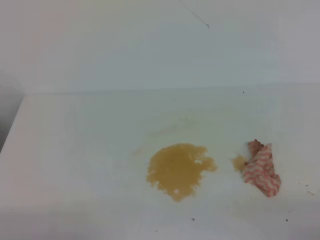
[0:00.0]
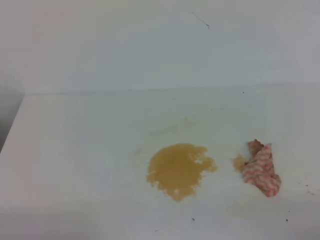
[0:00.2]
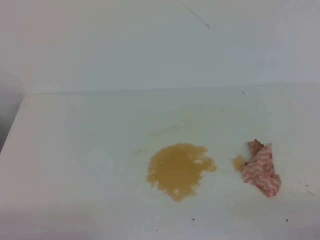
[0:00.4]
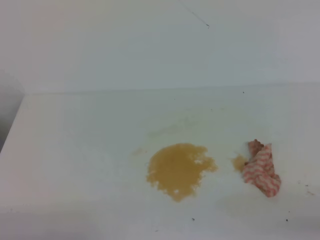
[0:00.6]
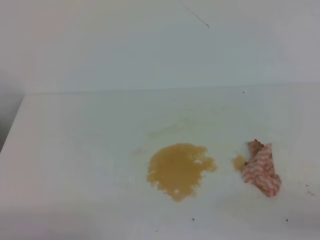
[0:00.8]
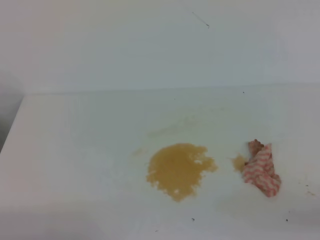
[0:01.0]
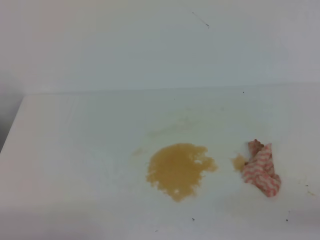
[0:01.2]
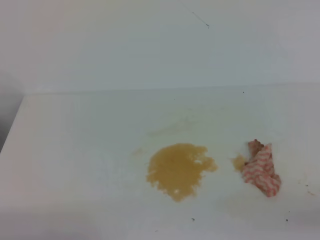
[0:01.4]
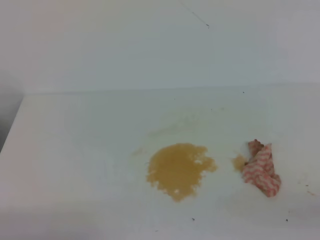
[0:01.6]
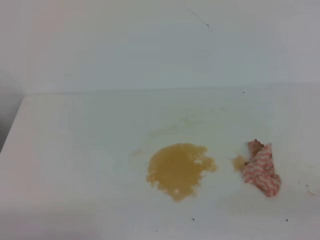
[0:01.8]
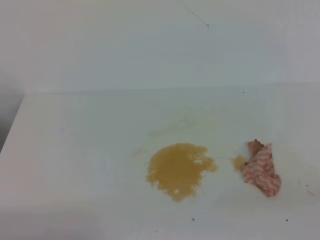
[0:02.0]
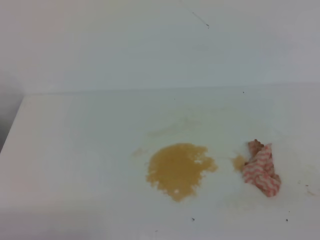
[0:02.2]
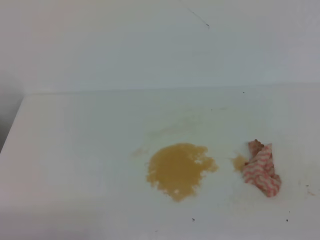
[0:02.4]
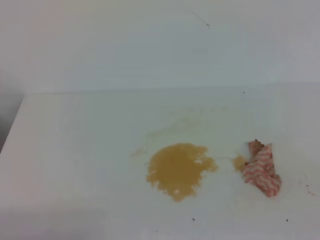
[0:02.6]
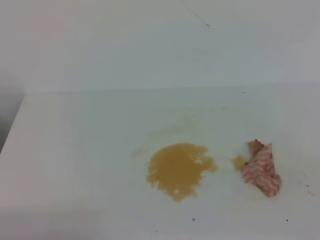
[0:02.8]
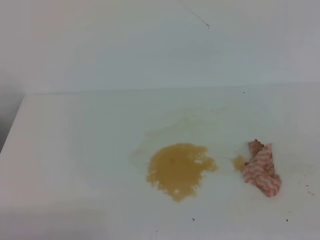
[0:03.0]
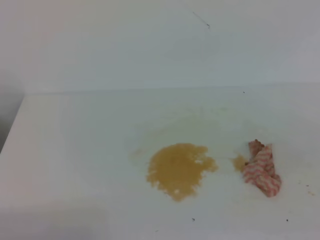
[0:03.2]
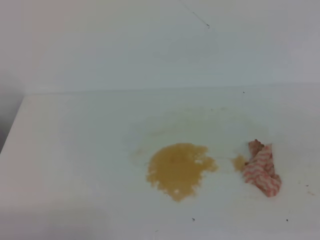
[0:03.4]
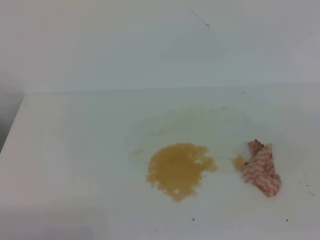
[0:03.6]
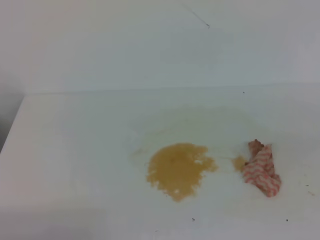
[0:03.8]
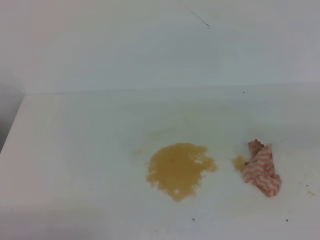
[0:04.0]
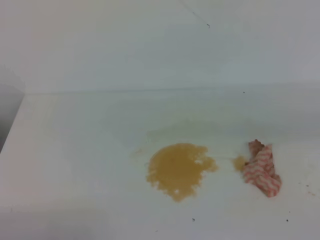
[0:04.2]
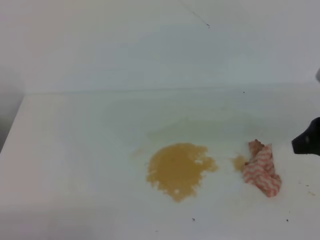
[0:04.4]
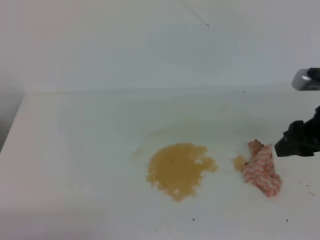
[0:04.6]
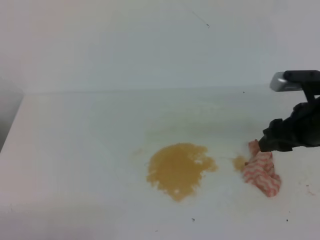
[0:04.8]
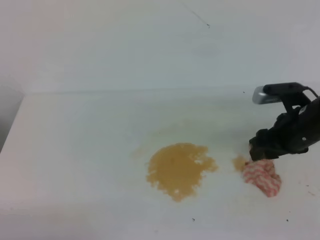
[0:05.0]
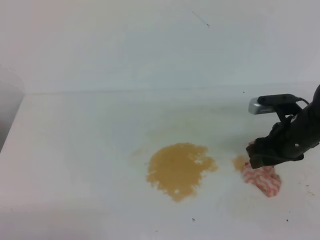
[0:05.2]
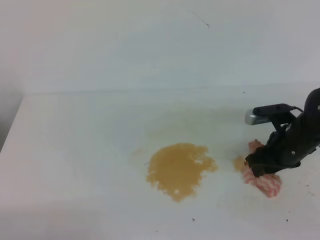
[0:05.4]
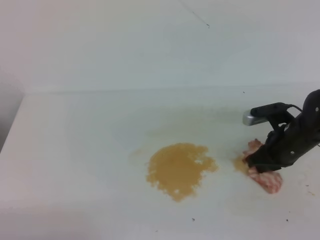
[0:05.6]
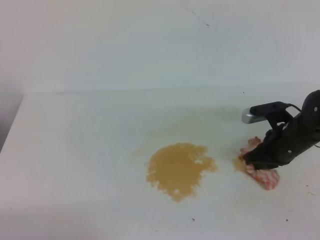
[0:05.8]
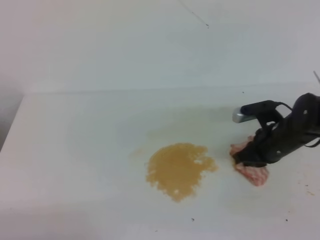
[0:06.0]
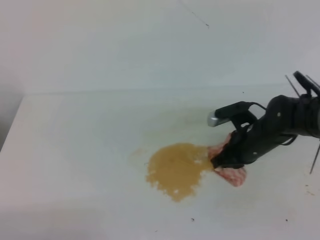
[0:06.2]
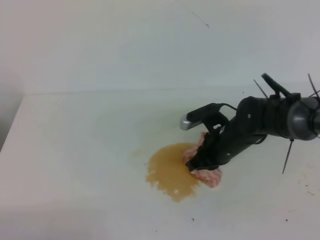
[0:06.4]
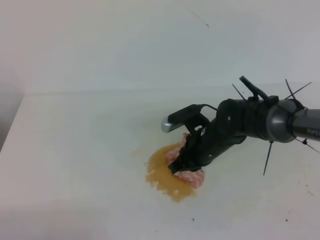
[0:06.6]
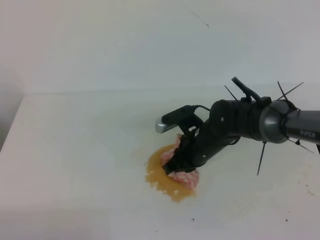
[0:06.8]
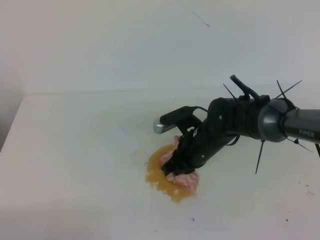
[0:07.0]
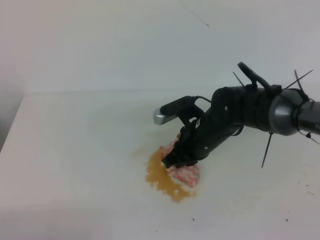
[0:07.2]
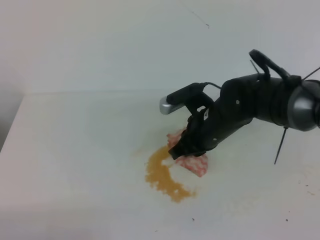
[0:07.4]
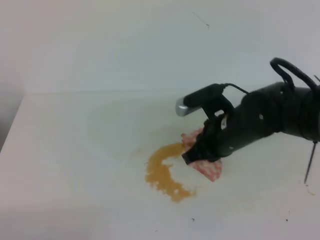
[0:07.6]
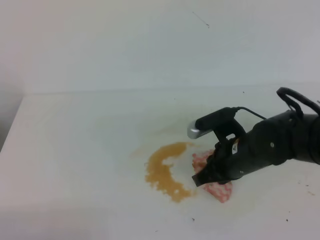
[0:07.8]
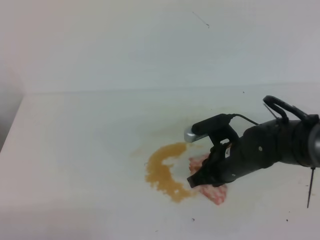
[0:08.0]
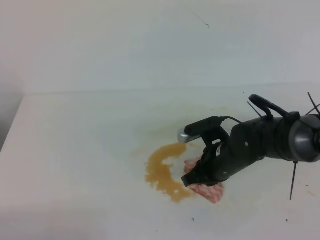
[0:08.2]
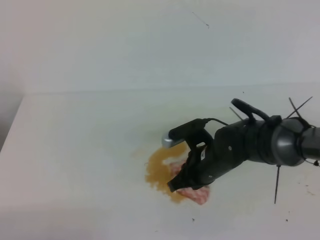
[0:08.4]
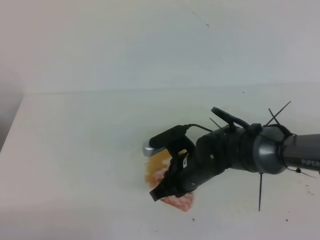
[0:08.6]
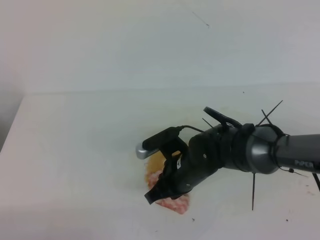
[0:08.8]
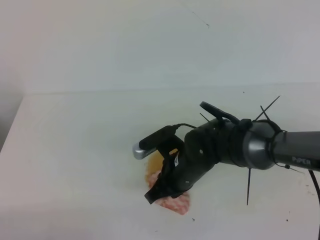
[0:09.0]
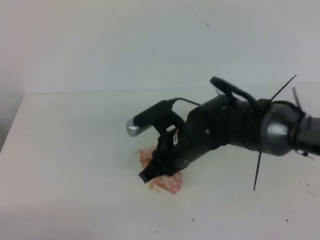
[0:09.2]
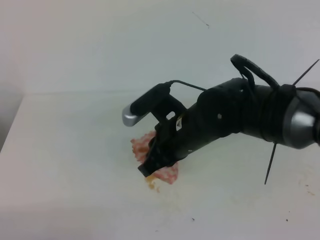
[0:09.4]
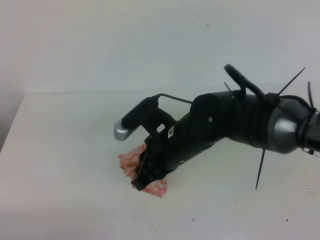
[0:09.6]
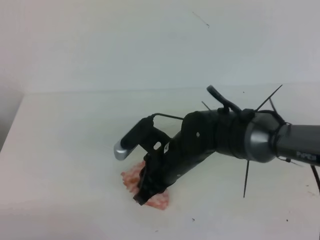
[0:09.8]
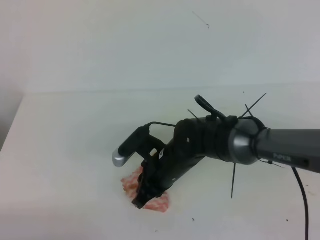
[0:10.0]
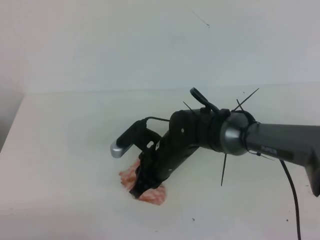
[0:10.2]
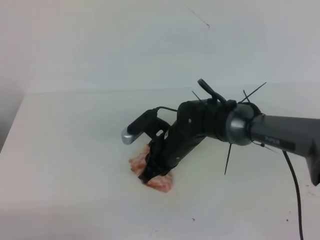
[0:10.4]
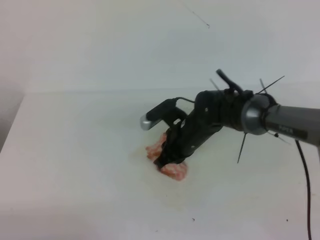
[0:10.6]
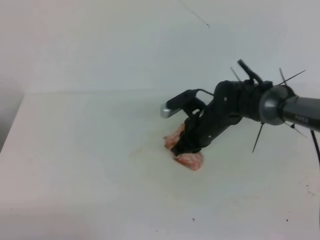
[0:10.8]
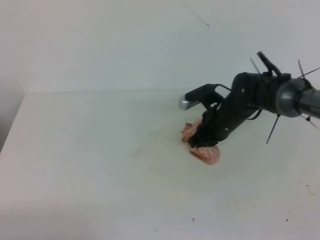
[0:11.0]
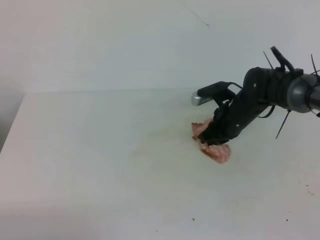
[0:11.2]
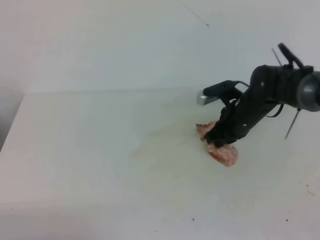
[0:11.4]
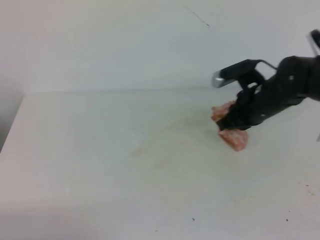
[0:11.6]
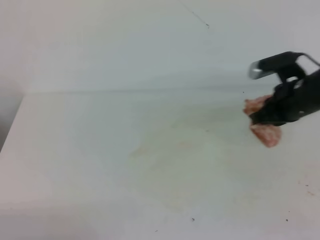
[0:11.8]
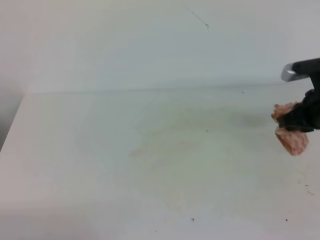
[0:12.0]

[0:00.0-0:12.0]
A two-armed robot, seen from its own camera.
0:03.0 to 0:04.4: The right gripper is displaced forward by some 20 cm, and opens its fingers.
0:04.4 to 0:06.0: The right gripper moves downward and forward, about 20 cm, and closes.
0:06.0 to 0:07.6: The right gripper shifts approximately 15 cm to the left and upward.
0:07.6 to 0:09.0: The right gripper shifts approximately 5 cm to the left.
0:09.0 to 0:10.4: The right gripper goes roughly 5 cm forward, and goes upward and returns, some 5 cm each way.
0:10.4 to 0:12.0: The right gripper goes about 25 cm to the right.

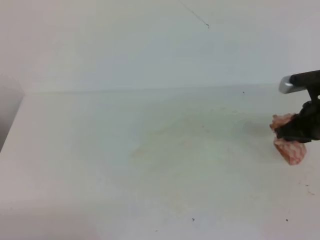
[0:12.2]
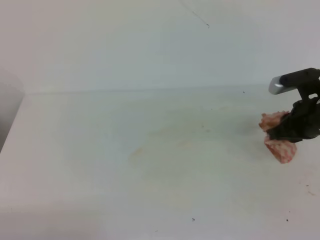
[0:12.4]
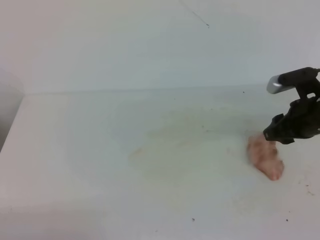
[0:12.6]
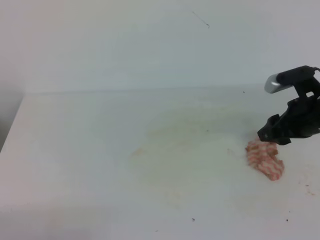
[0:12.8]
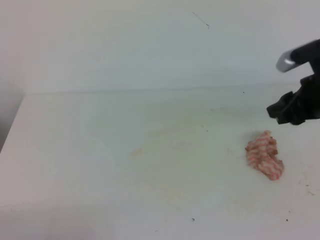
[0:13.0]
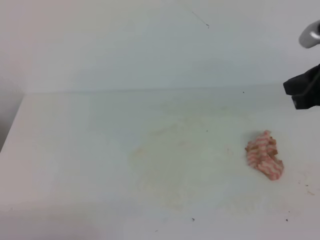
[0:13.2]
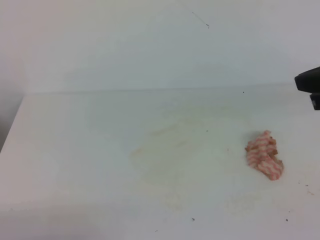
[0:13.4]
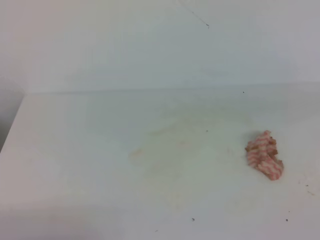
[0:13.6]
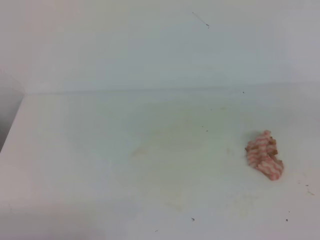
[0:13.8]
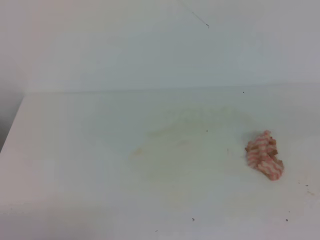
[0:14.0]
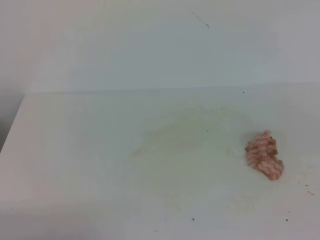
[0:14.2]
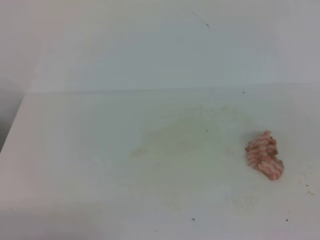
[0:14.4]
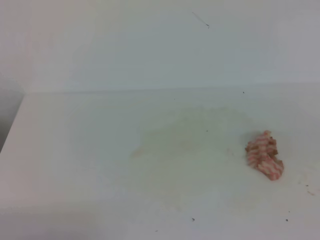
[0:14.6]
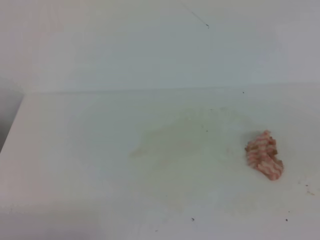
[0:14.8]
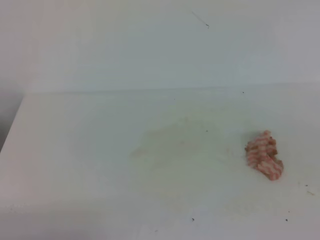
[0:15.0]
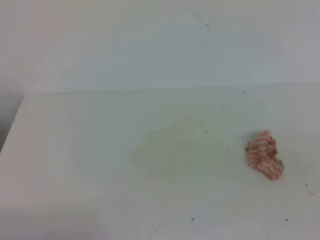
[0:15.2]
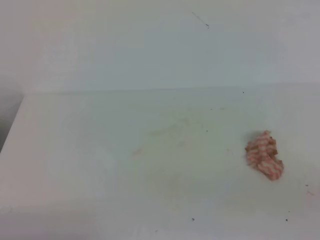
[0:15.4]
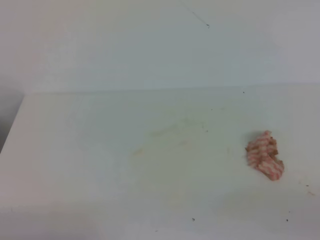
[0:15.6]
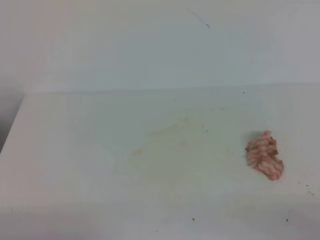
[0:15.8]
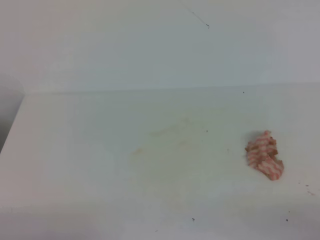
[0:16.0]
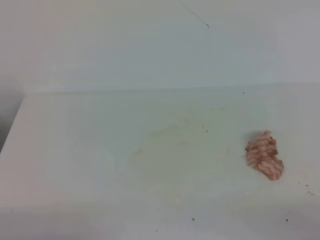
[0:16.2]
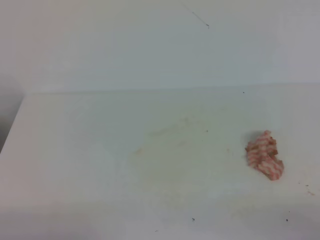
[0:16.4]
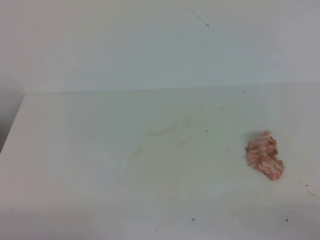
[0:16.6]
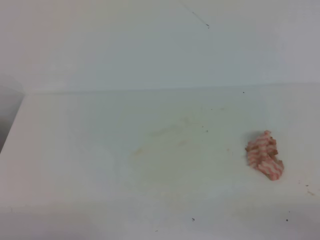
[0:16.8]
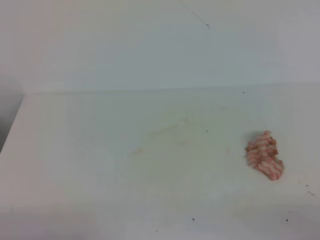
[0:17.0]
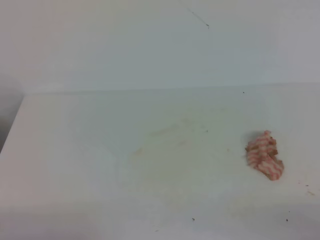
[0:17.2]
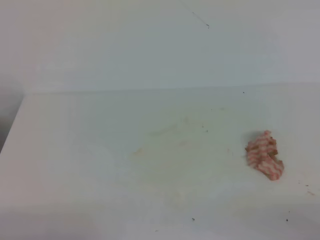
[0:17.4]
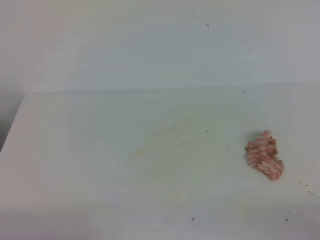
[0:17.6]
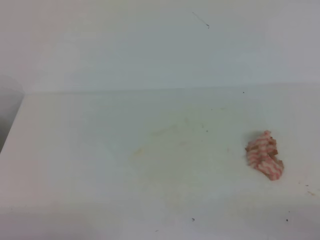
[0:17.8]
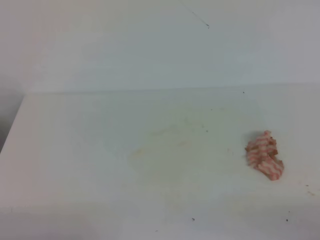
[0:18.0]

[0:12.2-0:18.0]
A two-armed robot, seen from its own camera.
0:12.2 to 0:13.6: The right gripper travels upward and backward by some 20 cm, and opens and closes again.
0:16.6 to 0:18.0: Both grippers stay put.
